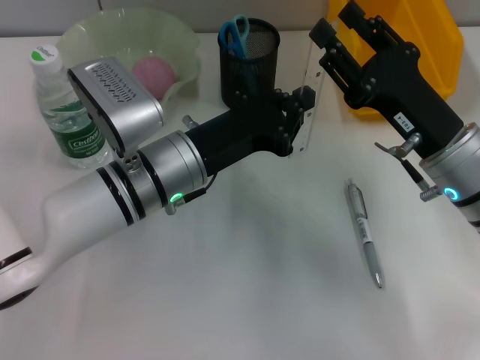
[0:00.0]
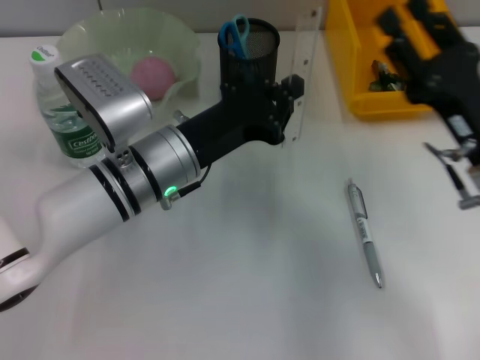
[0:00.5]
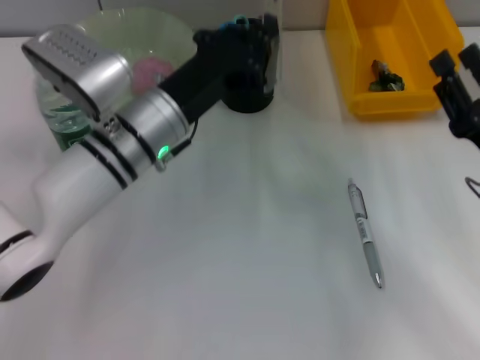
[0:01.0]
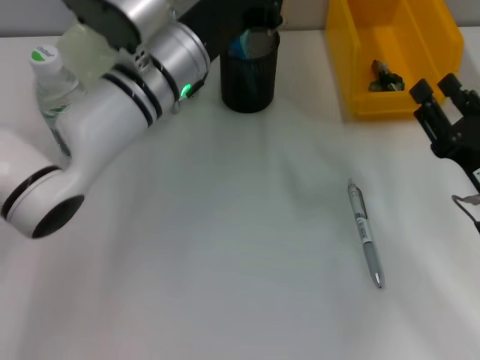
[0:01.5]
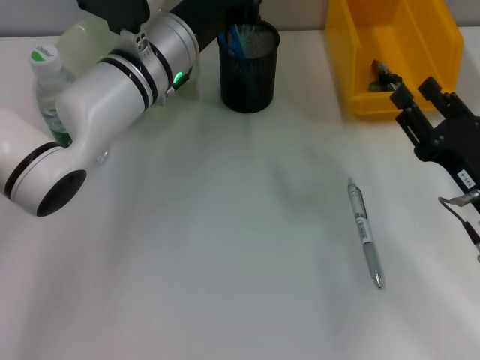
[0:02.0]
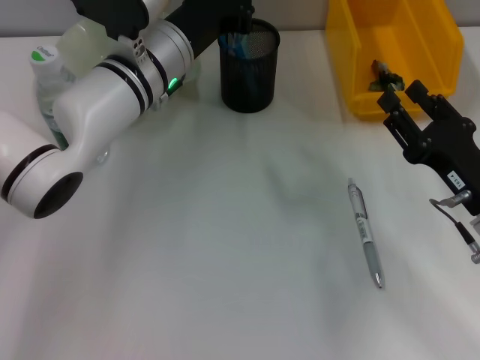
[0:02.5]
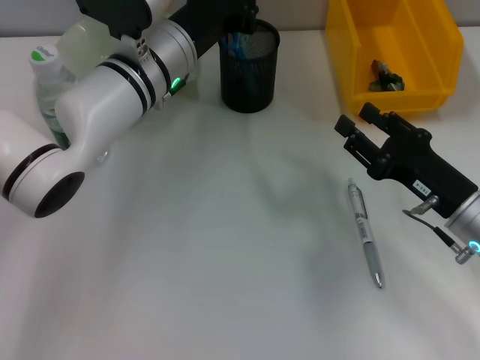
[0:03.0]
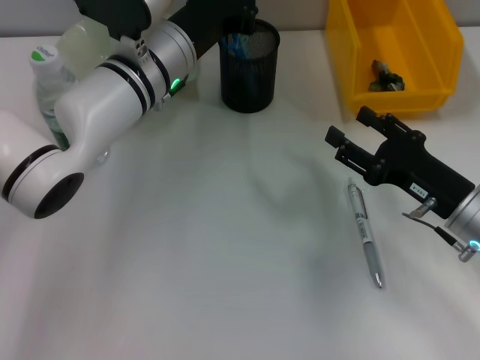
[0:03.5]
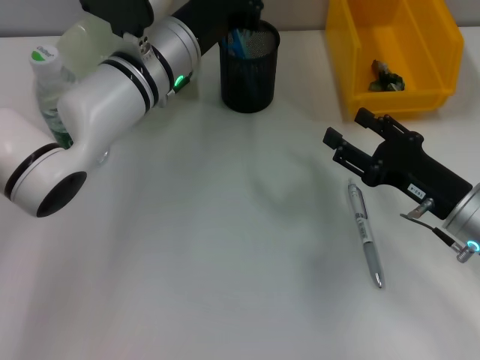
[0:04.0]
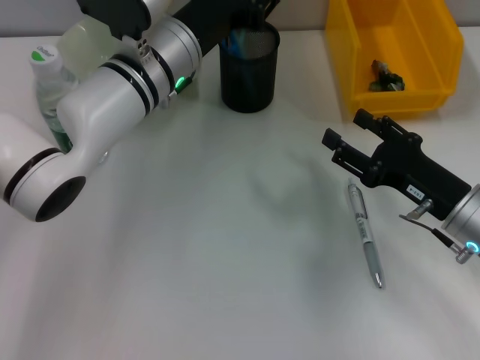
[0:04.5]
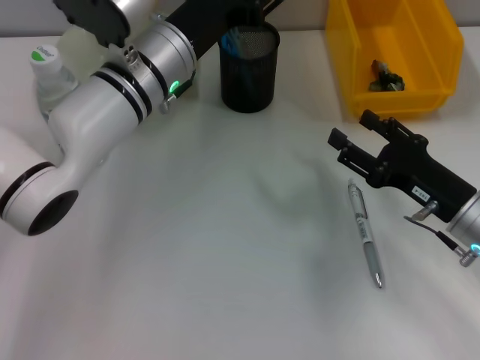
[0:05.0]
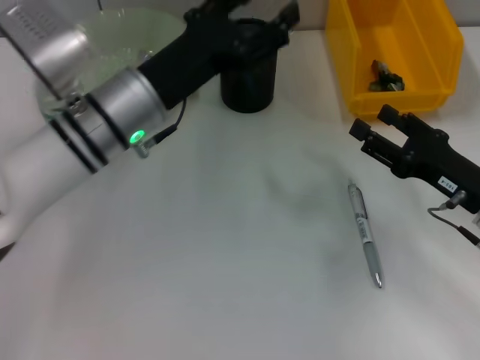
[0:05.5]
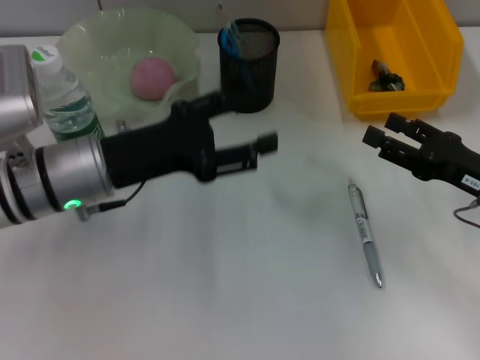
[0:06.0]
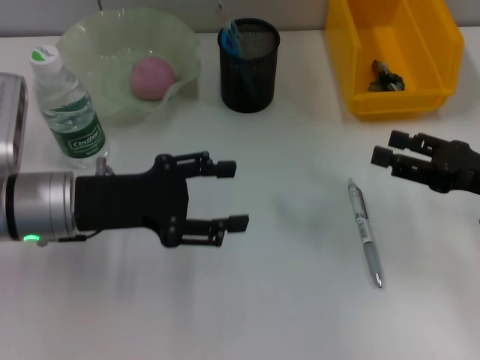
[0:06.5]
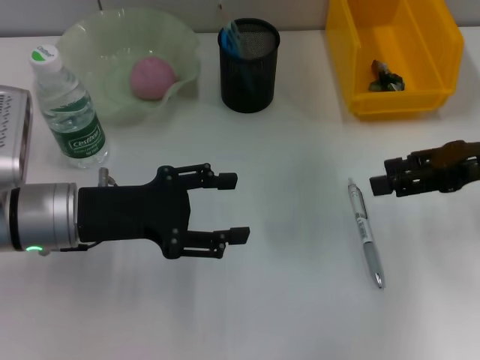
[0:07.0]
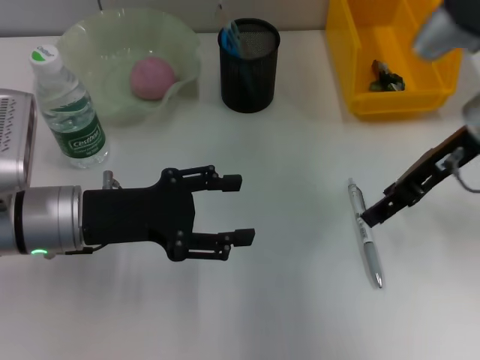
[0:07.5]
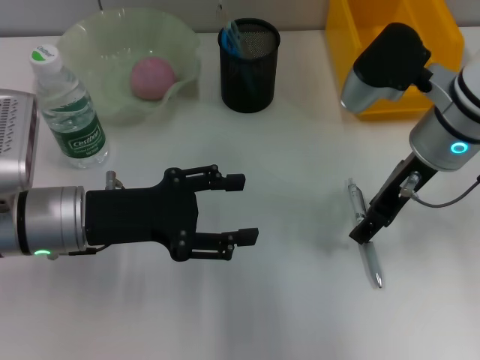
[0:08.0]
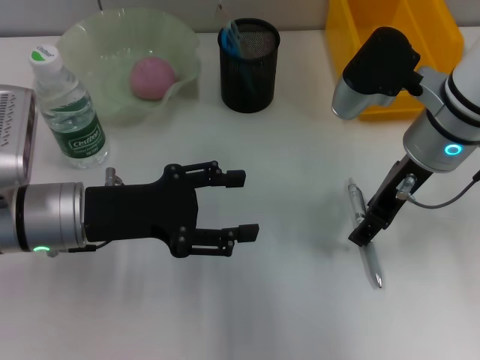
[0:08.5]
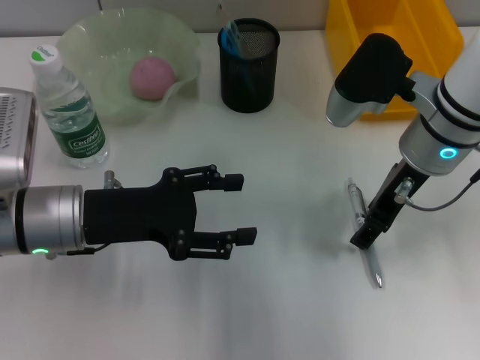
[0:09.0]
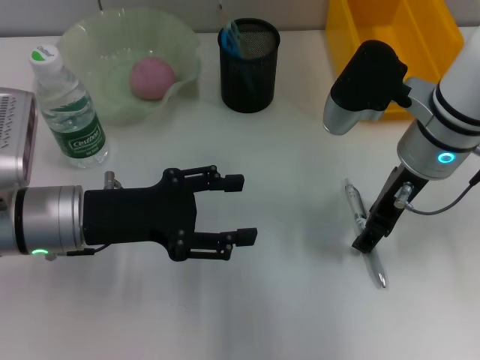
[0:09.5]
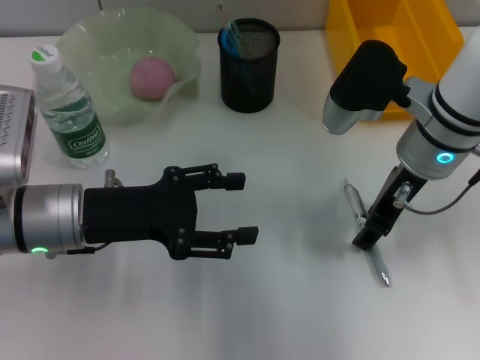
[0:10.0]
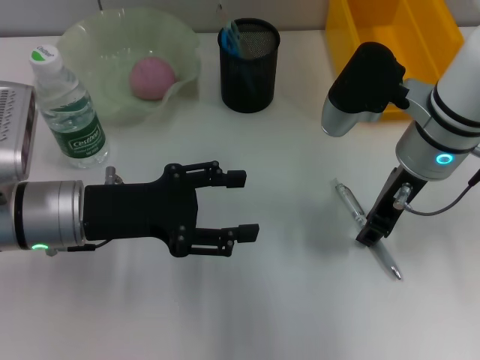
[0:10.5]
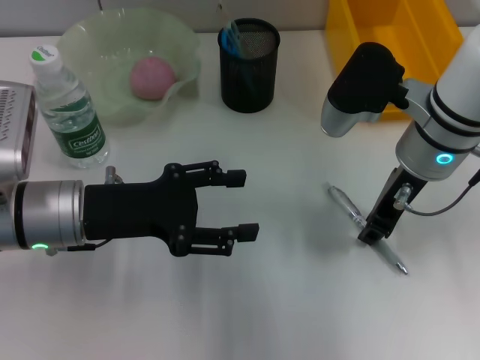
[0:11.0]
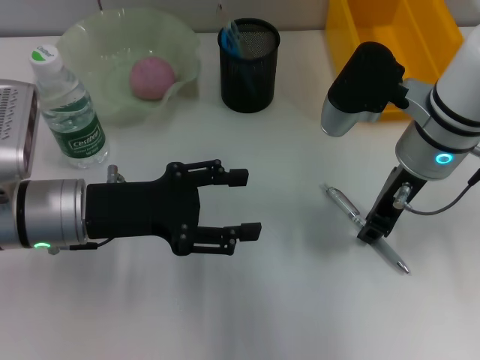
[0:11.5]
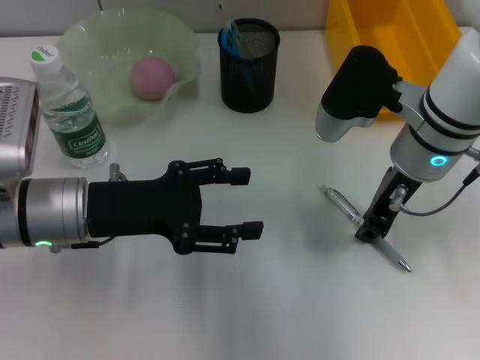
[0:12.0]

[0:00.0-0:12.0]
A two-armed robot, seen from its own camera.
Step, 0:00.5 to 0:05.0: Place the ruler into the pen holder with the left hand.
0:00.0 to 0:02.0: The left gripper shifts roughly 10 cm forward; the right gripper is displaced to the right by approximately 5 cm.
0:02.0 to 0:04.0: The grippers stay close to where they were, moving slightly.
0:04.0 to 0:06.0: The left gripper is displaced backward and to the left by roughly 15 cm, and opens up. The right gripper travels to the right by approximately 5 cm.
0:06.0 to 0:08.0: The right gripper shifts roughly 15 cm to the left, upward and forward.
0:08.0 to 0:10.0: There are only small adjustments of the grippers.
0:10.0 to 0:12.0: The right gripper closes its fingers.

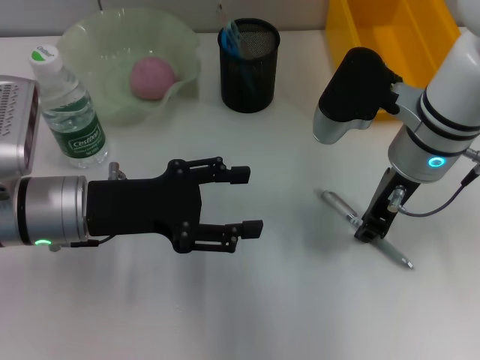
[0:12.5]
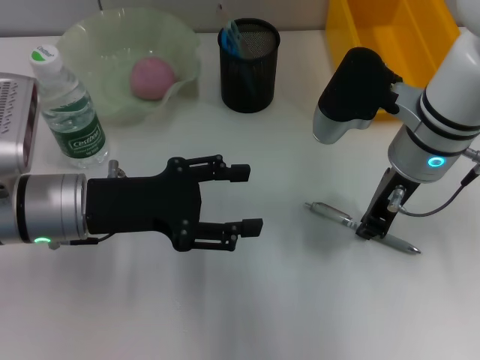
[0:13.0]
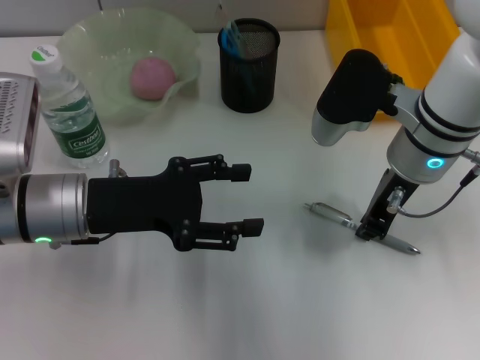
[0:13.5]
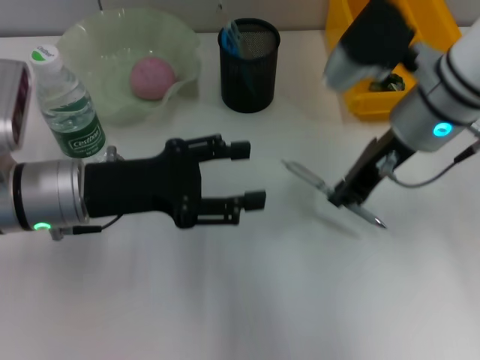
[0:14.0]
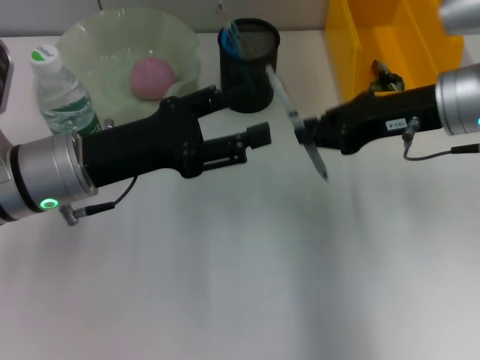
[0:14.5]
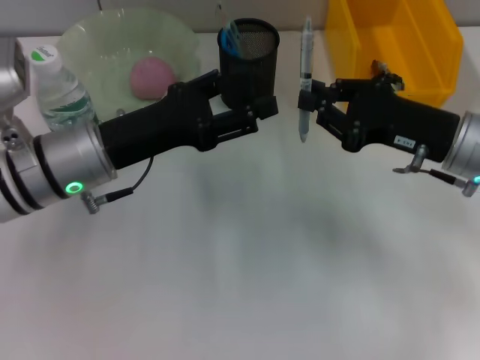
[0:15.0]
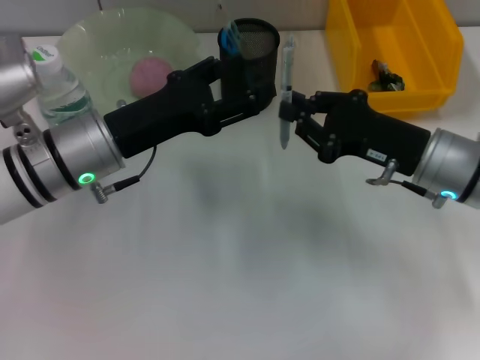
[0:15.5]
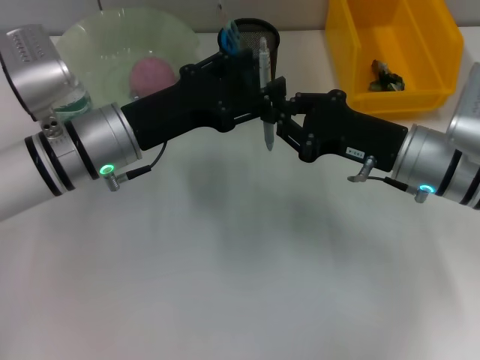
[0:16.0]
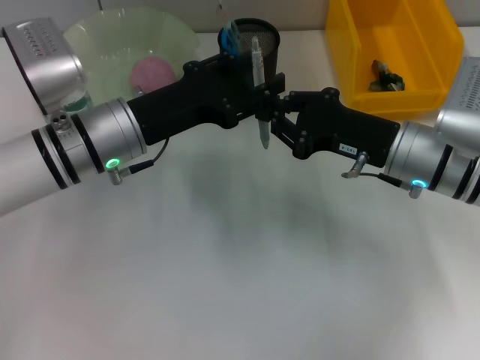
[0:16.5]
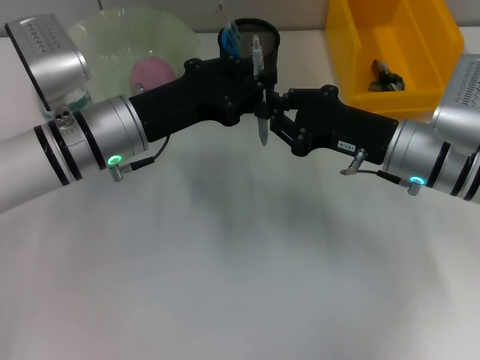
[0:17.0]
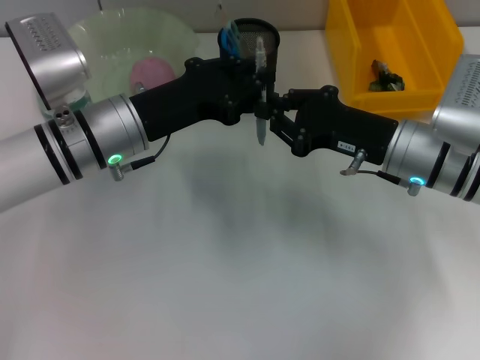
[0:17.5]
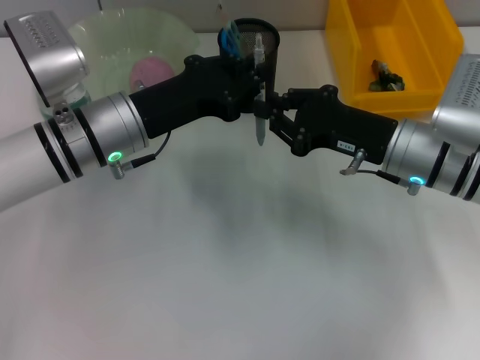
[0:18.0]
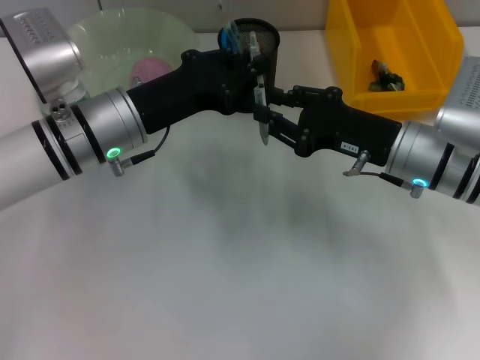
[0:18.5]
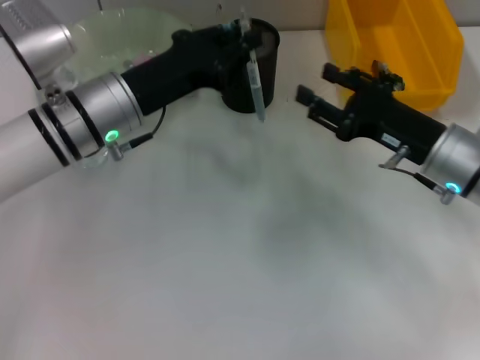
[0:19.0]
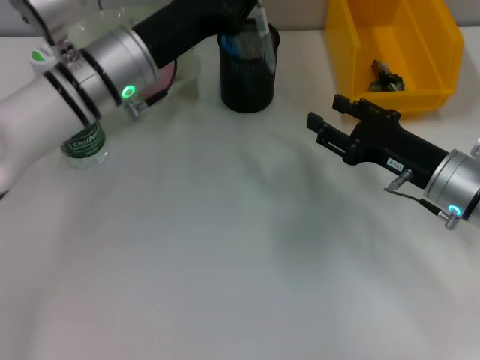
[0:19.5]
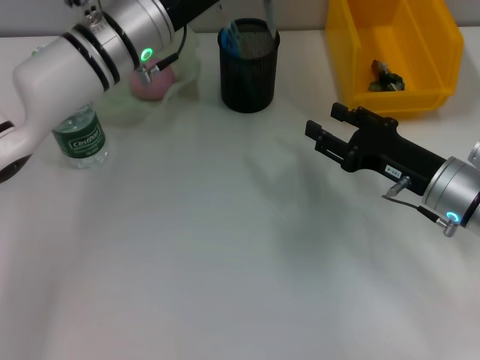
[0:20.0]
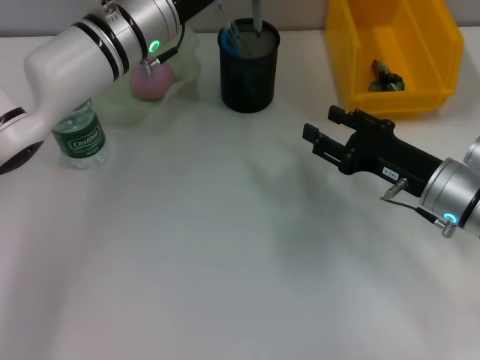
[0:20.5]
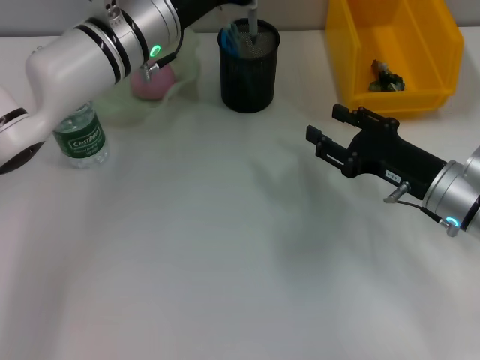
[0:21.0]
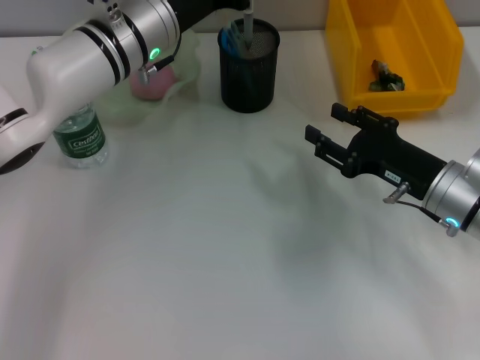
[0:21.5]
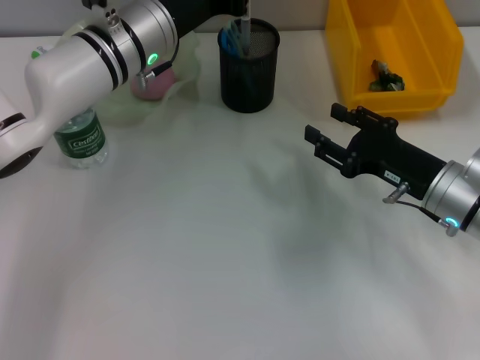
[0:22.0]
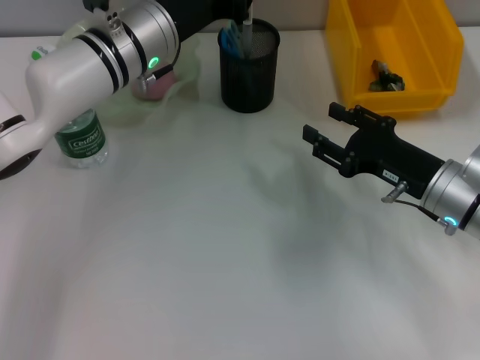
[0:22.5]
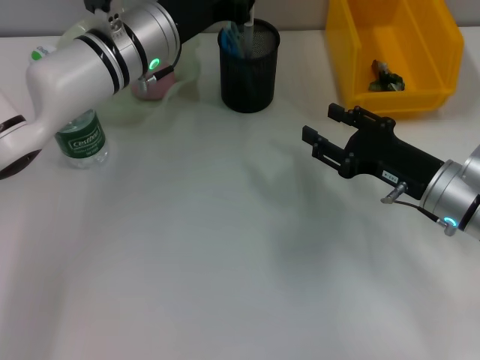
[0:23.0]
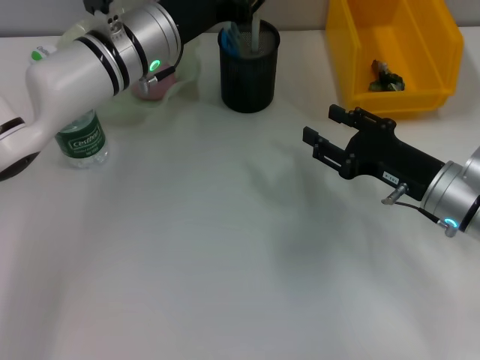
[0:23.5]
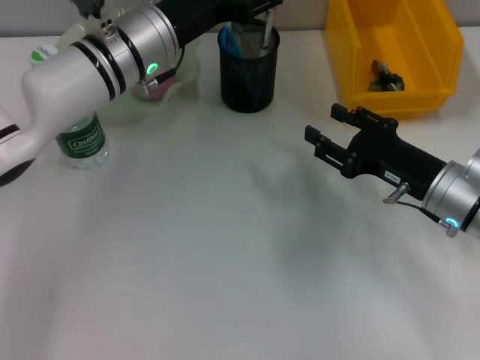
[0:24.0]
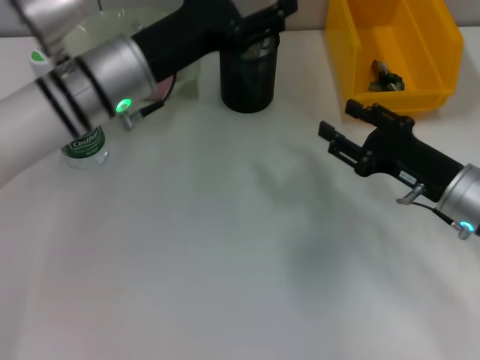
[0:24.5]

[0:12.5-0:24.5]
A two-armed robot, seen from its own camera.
Step, 0:13.5 to 0:18.0: Pass the gray spring-action pen from the right hand to the left hand.
Step, 0:18.5 to 0:24.0: Place the gray spring-action pen into the pen holder with the left hand.
0:12.5 to 0:14.5: The right gripper moves to the right, about 5 cm.
0:14.5 to 0:16.5: The right gripper is displaced downward by about 10 cm, while the left gripper shifts by about 5 cm.
0:16.5 to 0:18.5: The left gripper closes up.
0:18.5 to 0:20.5: The right gripper changes place by about 5 cm, and opens its fingers, while the left gripper travels forward by approximately 10 cm.
0:20.5 to 0:22.5: The grippers move only a little.
0:22.5 to 0:24.5: The left gripper moves backward, some 5 cm, and opens up.

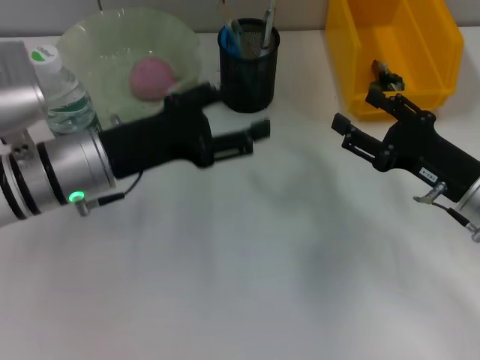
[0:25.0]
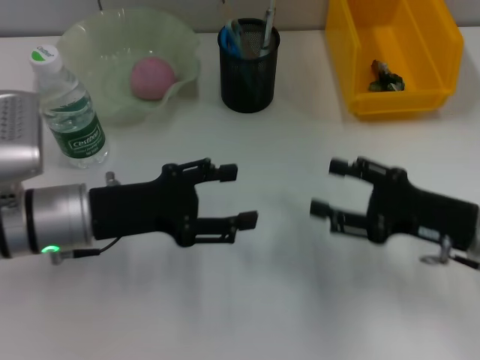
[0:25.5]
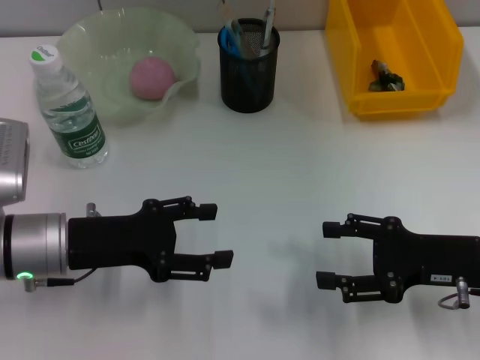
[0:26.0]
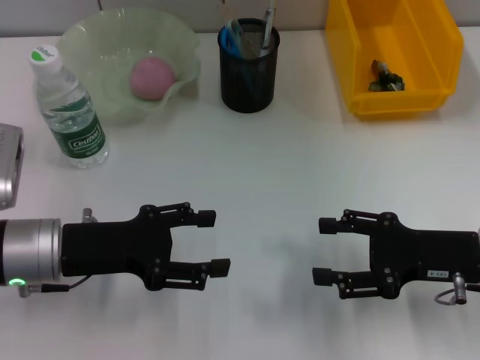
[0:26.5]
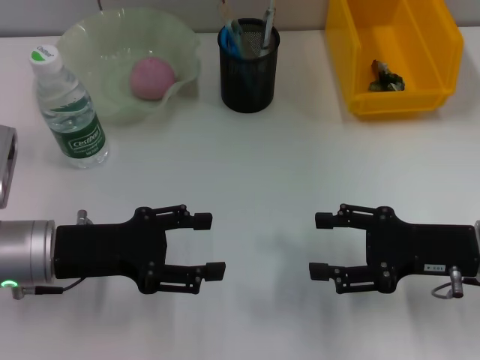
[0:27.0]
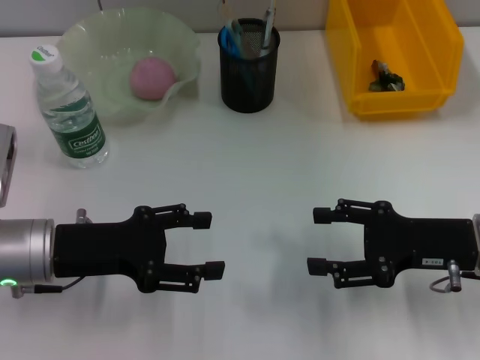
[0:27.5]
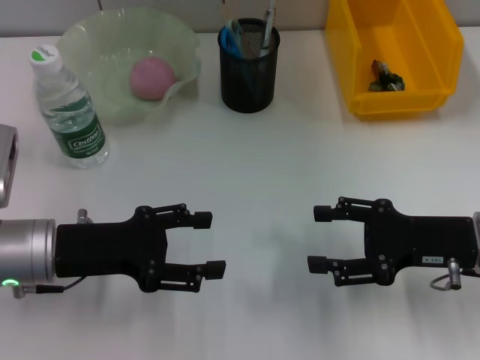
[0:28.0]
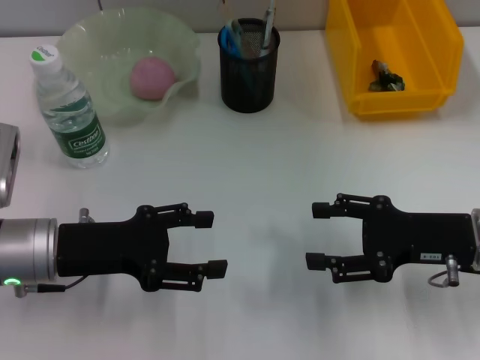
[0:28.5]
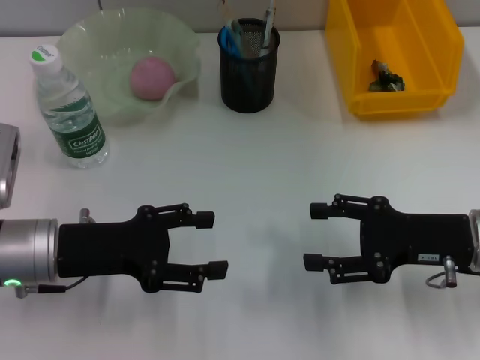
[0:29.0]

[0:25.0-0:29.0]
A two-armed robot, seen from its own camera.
0:25.0 to 0:27.0: The left gripper goes about 5 cm backward and to the left.
0:27.0 to 0:29.0: Both grippers stay put.
